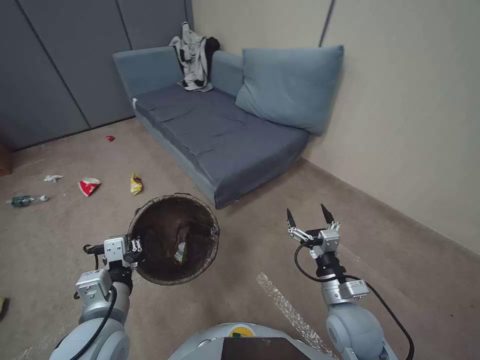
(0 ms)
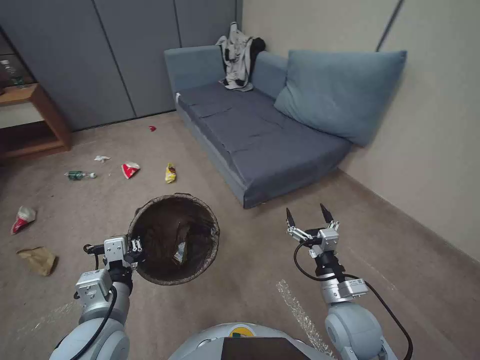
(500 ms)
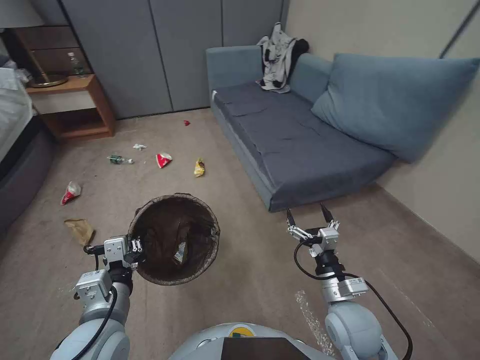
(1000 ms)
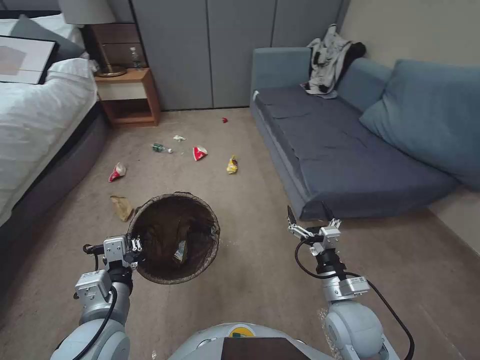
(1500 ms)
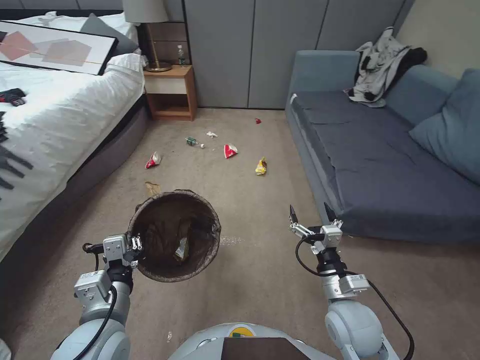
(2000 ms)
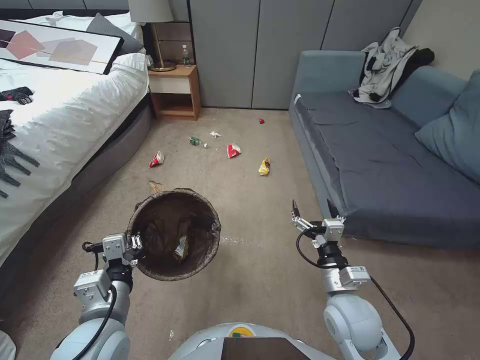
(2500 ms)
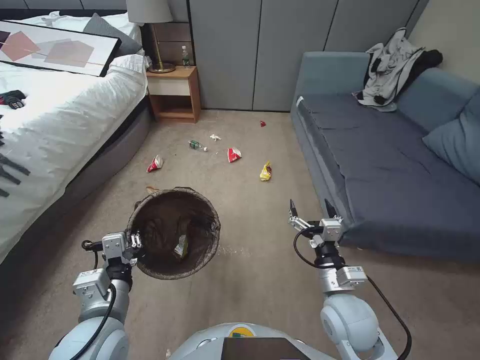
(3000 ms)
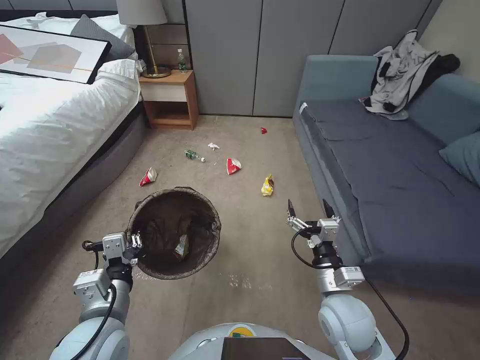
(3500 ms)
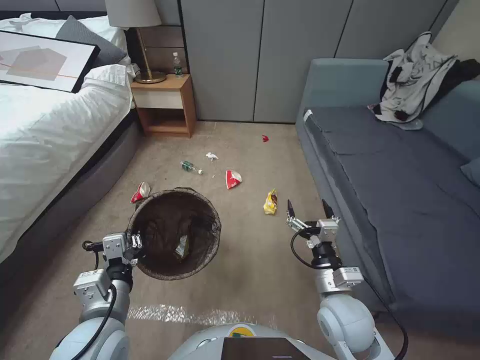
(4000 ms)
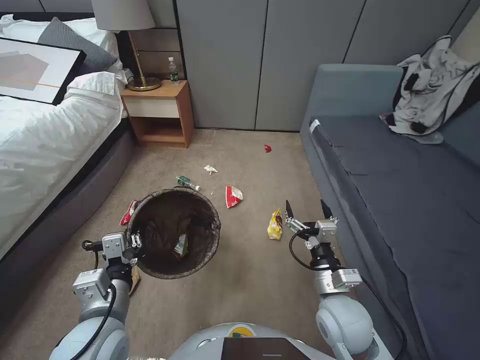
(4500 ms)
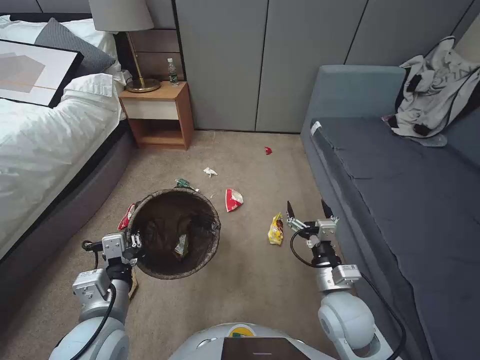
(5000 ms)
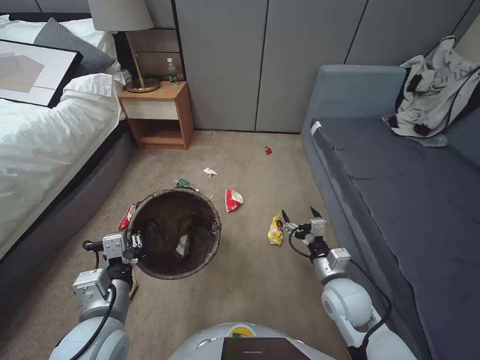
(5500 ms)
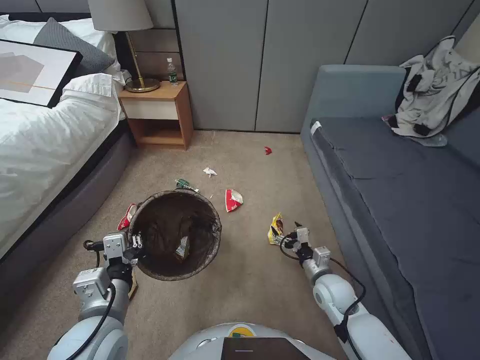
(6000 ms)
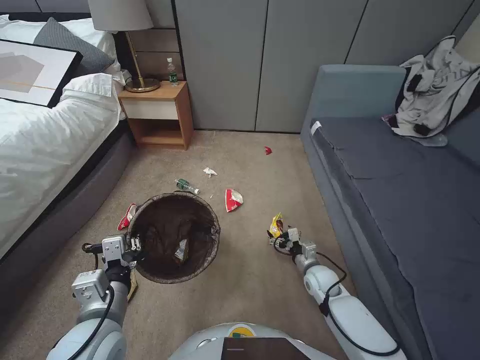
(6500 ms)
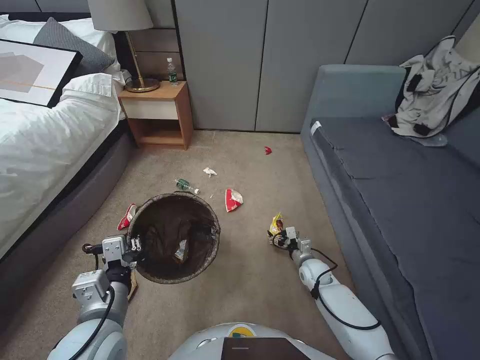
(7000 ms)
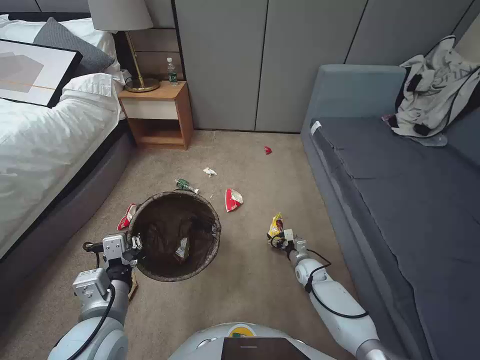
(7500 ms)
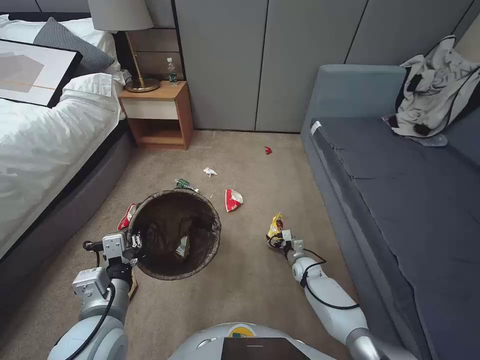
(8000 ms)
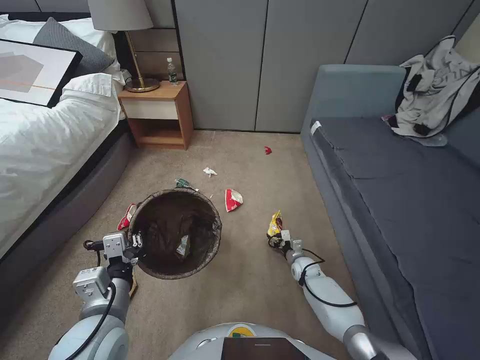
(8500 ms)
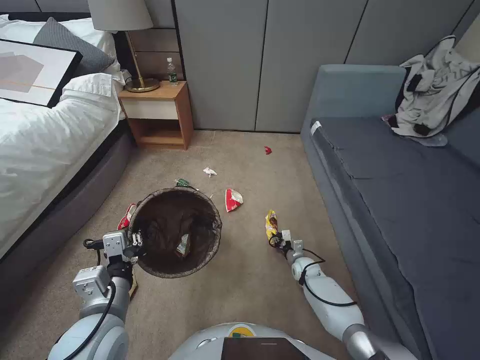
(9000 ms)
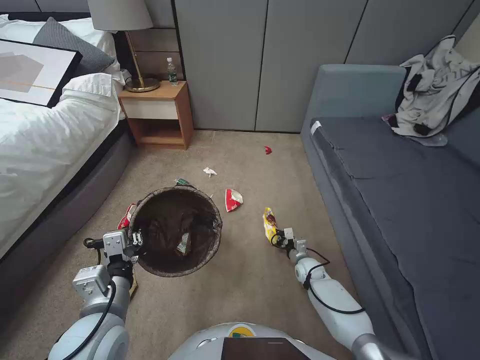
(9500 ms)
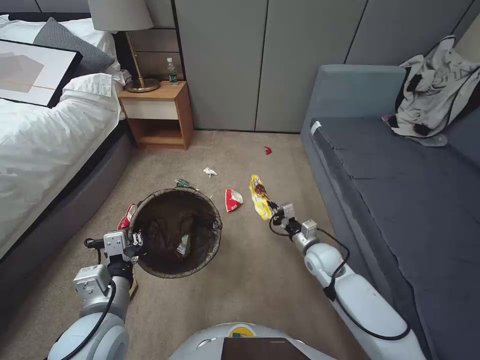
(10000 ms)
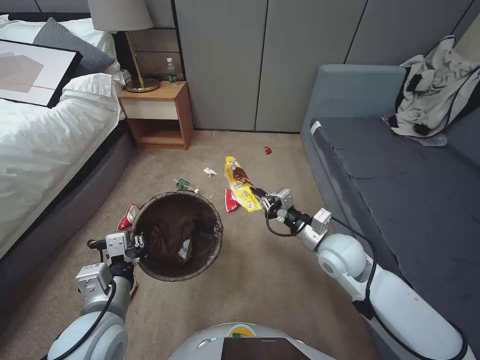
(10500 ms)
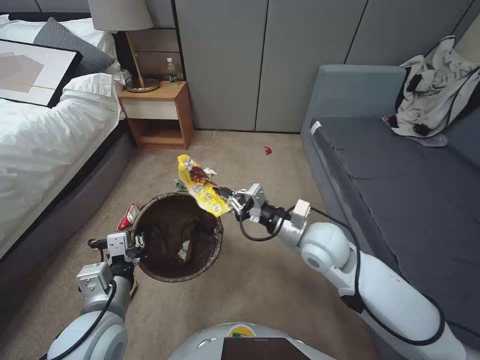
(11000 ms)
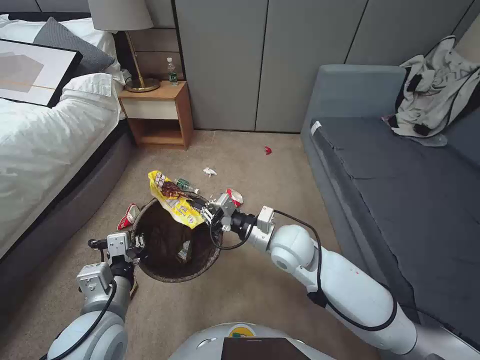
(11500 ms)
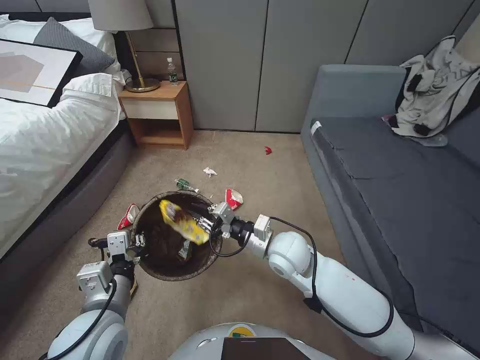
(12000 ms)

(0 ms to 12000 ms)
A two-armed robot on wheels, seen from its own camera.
Task of the whole recording: Pick up the trash bin, then pick up the garbage from the floor and place it into the trash bin.
4000 ms - 6000 ms: The right gripper travels downward and forward by some 10 cm.
6000 ms - 8000 ms: The right gripper travels downward and forward by some 20 cm.
8000 ms - 10000 ms: The right gripper shifts about 15 cm upward, and closes up.
10000 ms - 12000 ms: The right gripper is displaced upward and to the left by about 20 cm.

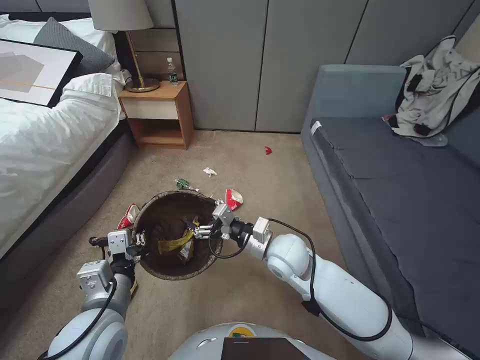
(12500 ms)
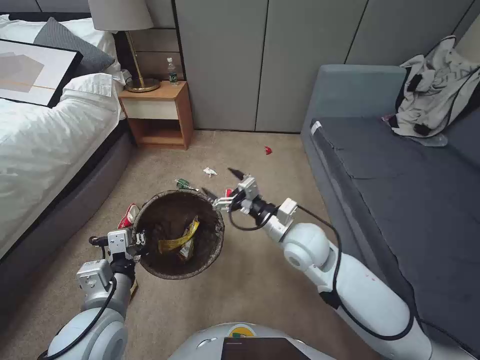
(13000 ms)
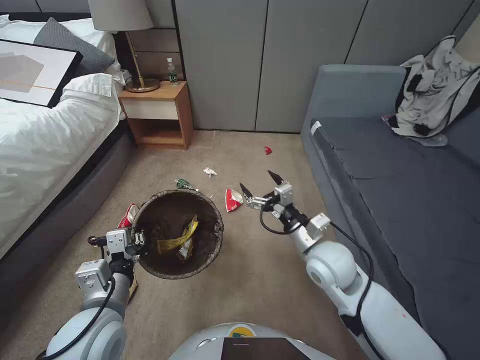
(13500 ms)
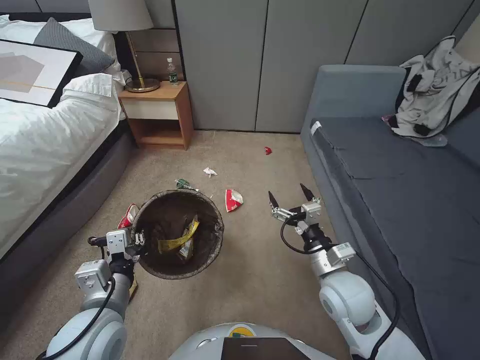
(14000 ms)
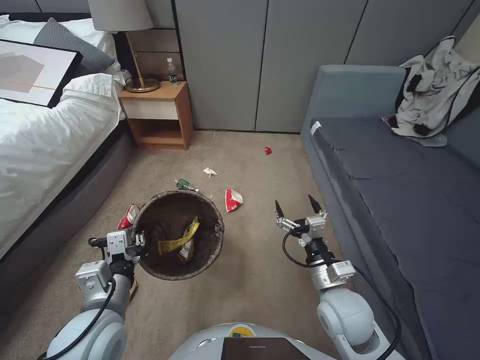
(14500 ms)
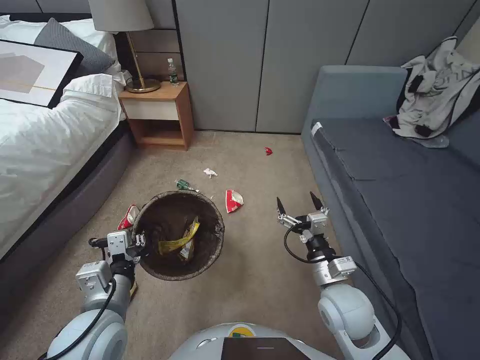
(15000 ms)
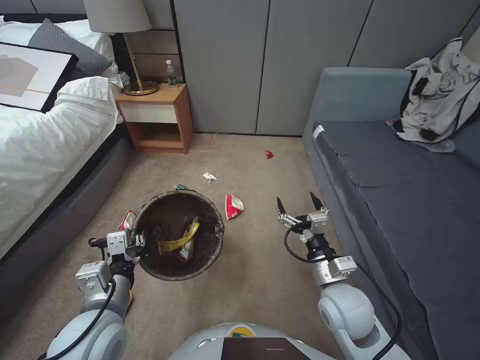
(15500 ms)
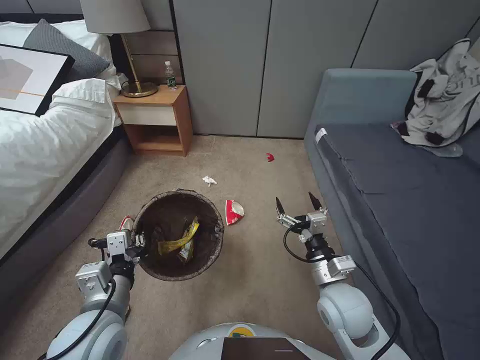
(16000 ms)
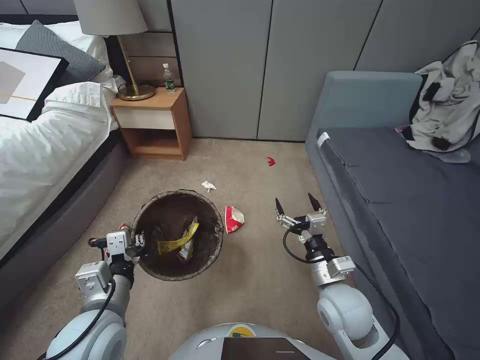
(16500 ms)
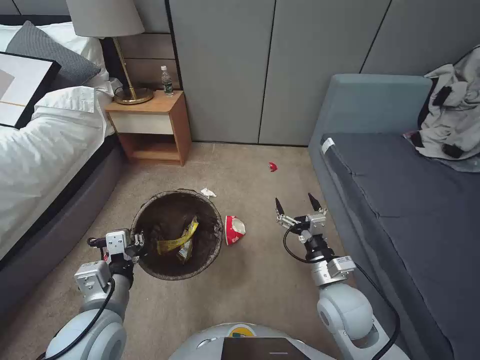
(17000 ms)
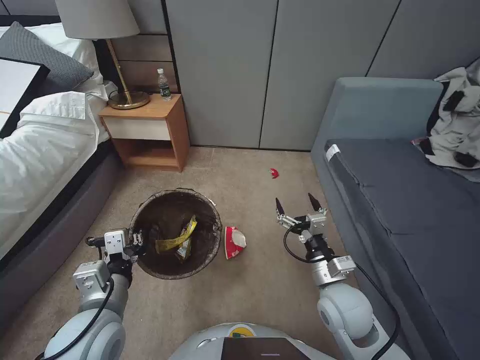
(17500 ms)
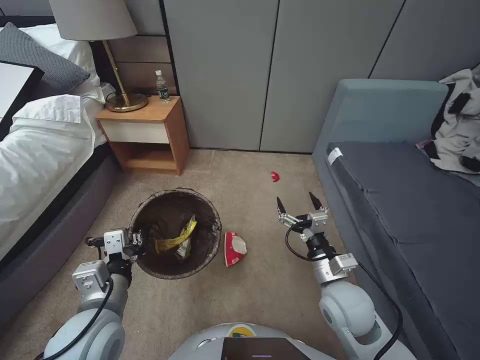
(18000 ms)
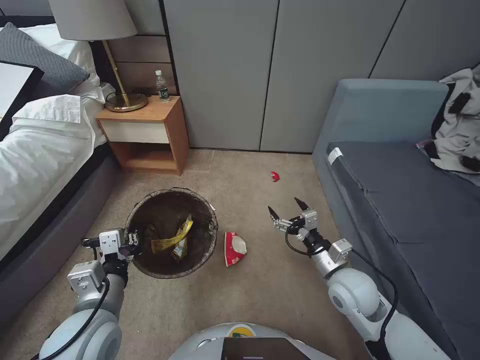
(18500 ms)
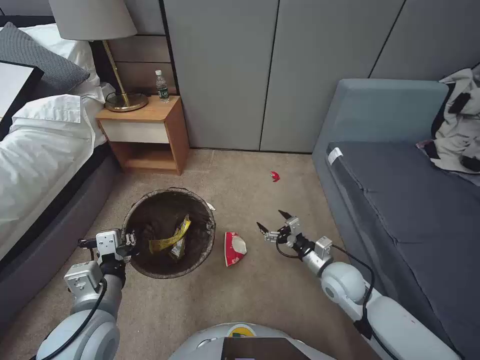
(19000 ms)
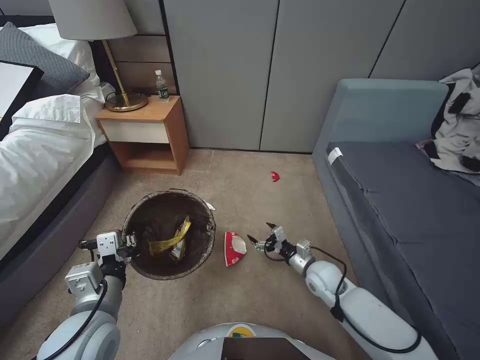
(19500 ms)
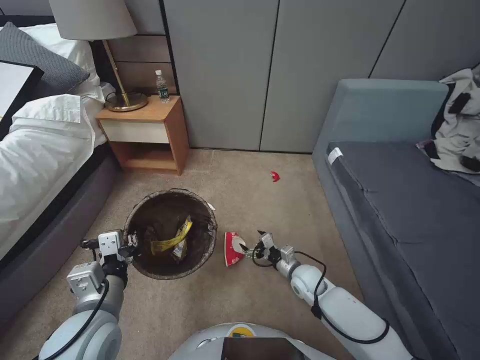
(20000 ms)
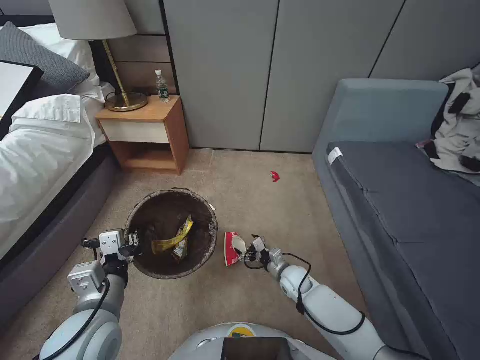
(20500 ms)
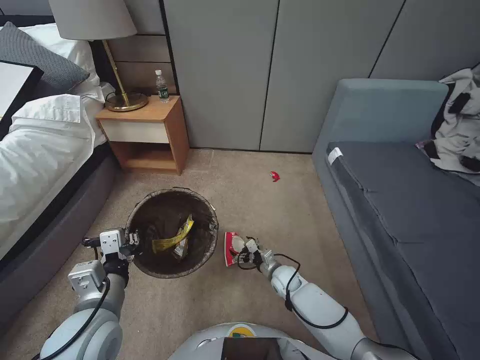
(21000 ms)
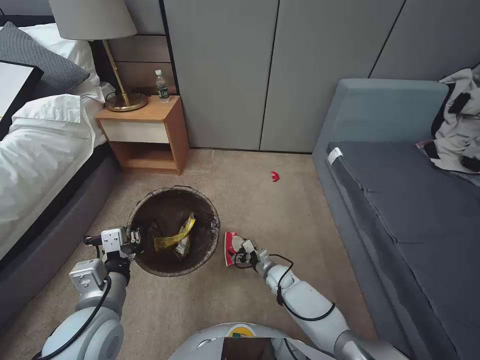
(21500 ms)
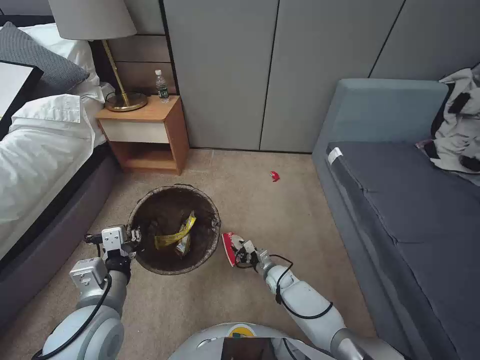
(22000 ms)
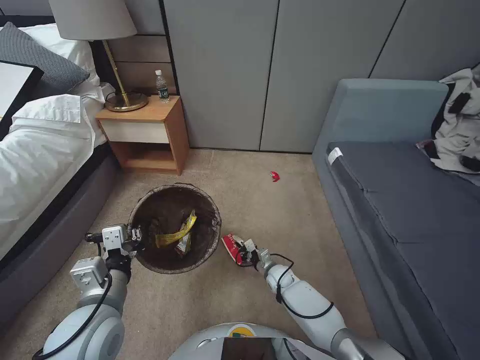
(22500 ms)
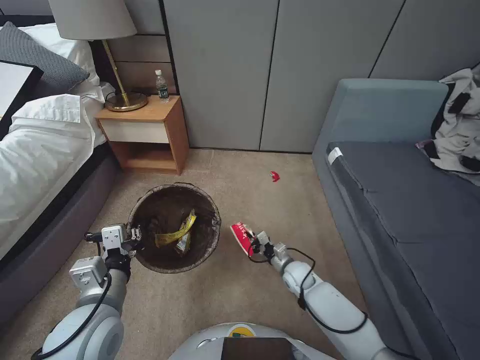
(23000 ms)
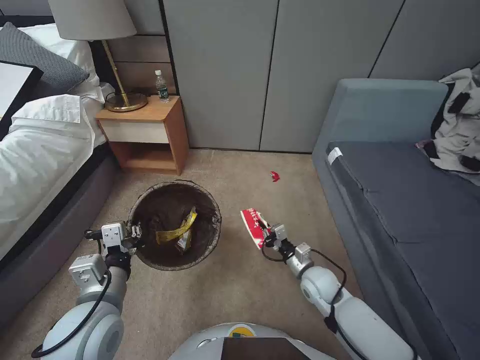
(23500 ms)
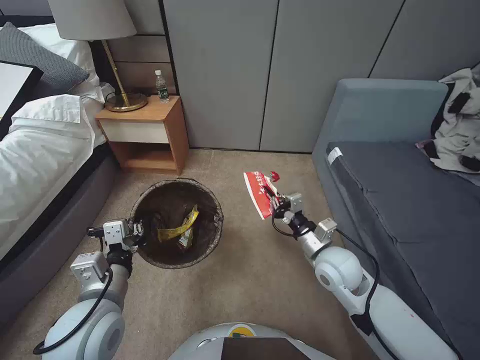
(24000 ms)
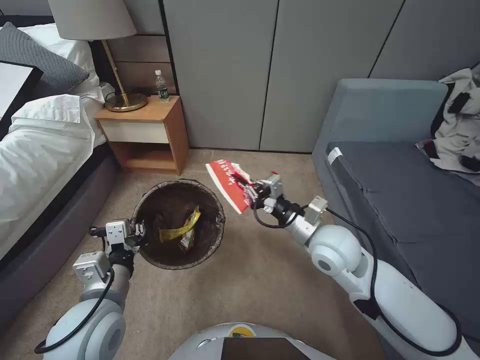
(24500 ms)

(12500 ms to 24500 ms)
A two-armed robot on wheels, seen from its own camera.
Task of the whole recording: Pick up the trash bin, then pick up the garbage from the floor and place it into the trash bin.
12500 ms - 14500 ms: The right gripper shifts some 15 cm to the right and backward.
14500 ms - 16500 ms: The two grippers keep their place.
18500 ms - 20500 ms: The right gripper travels downward and forward by approximately 20 cm.
20500 ms - 22500 ms: The right gripper travels downward by some 5 cm, and closes up.
22500 ms - 24500 ms: The right gripper goes approximately 35 cm upward.

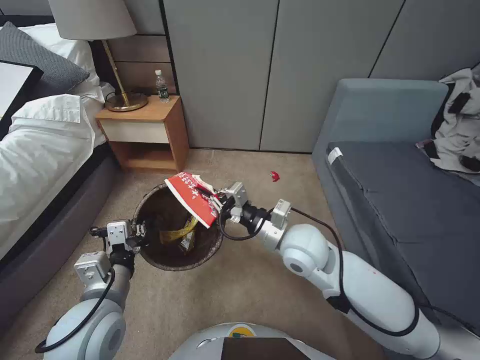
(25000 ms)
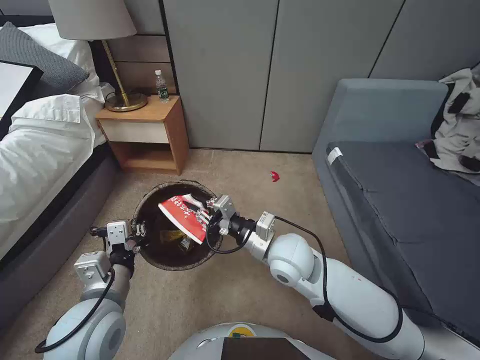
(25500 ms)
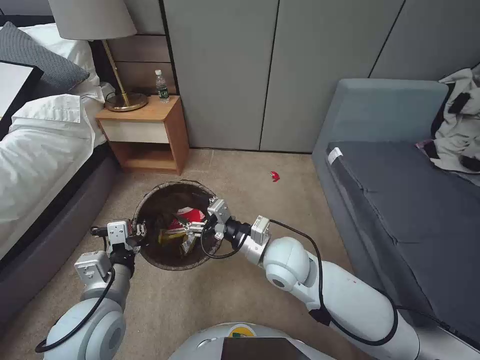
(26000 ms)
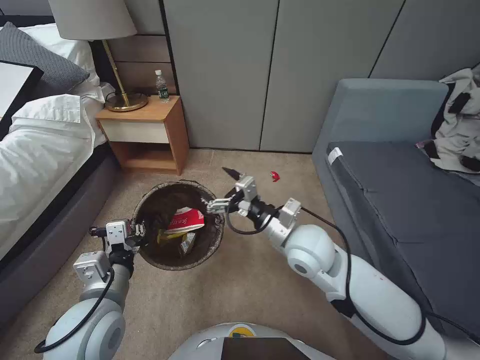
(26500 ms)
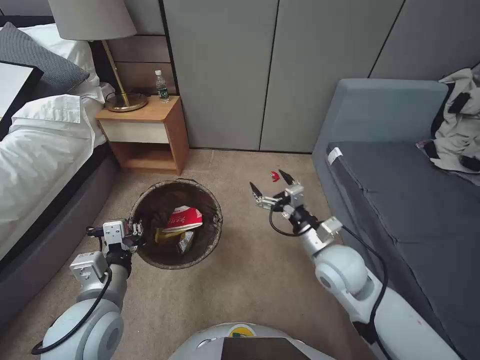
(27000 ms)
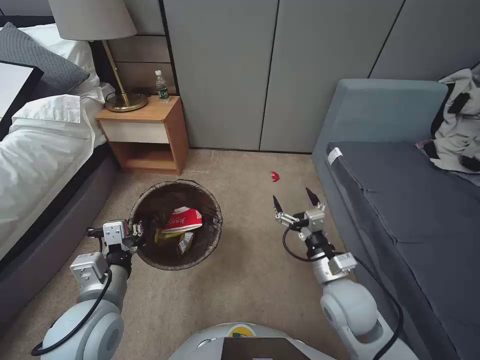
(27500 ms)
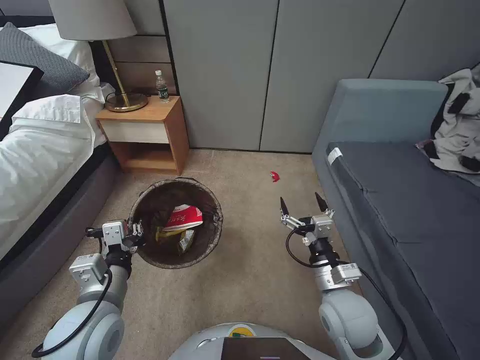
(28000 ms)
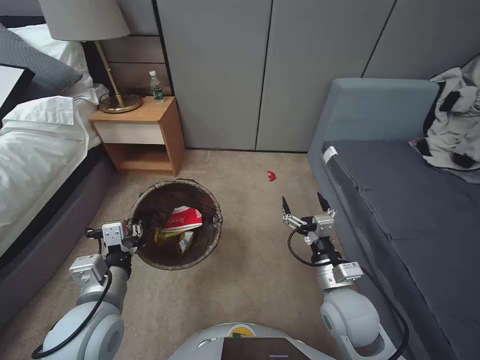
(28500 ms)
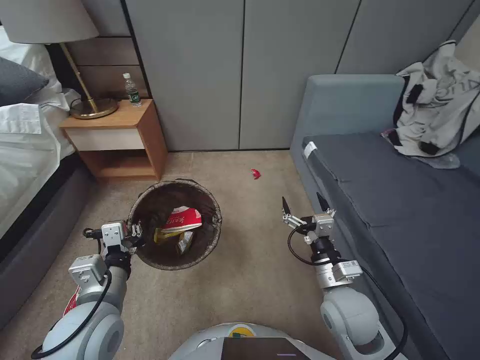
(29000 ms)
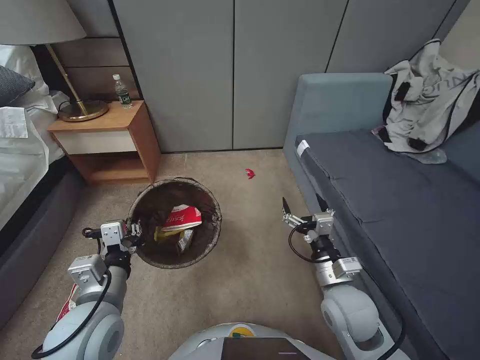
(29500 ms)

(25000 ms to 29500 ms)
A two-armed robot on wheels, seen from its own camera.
Task of the whole recording: Pick up the trash bin, then pick up the garbage from the floor and place it into the trash bin.
25000 ms - 27000 ms: The right gripper goes roughly 5 cm to the right, and opens.
27000 ms - 29500 ms: The right gripper shifts about 10 cm backward and downward.
